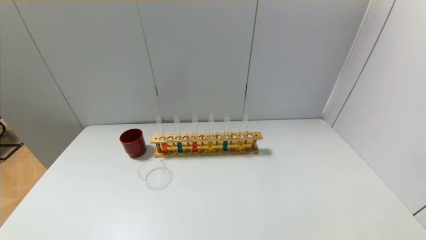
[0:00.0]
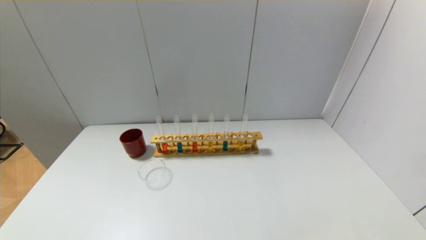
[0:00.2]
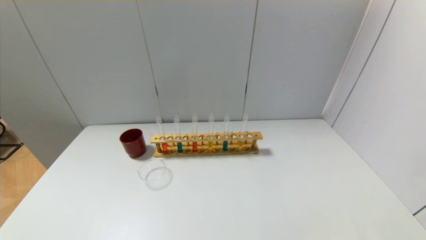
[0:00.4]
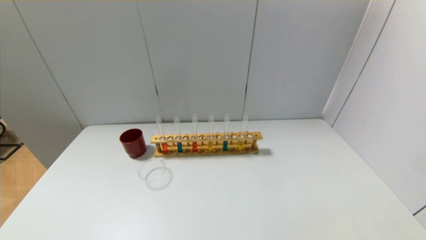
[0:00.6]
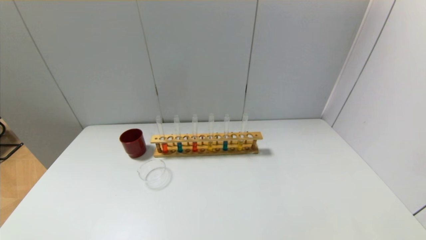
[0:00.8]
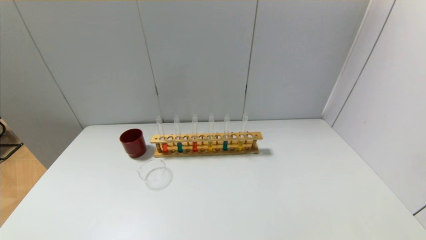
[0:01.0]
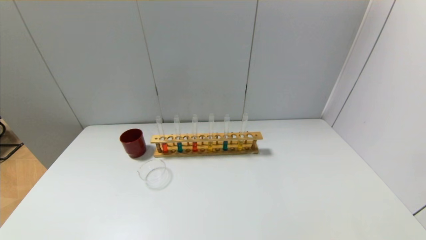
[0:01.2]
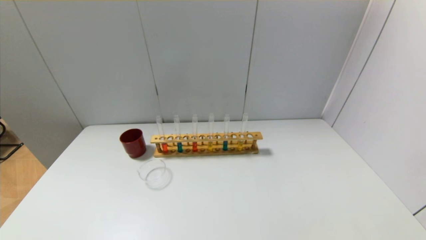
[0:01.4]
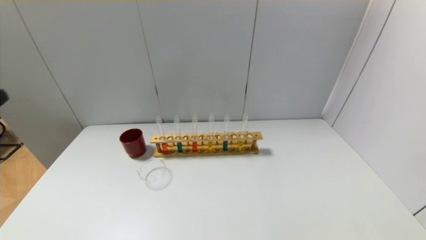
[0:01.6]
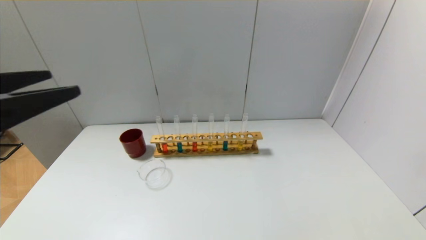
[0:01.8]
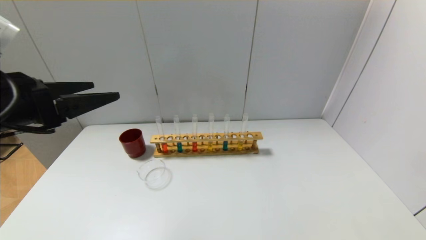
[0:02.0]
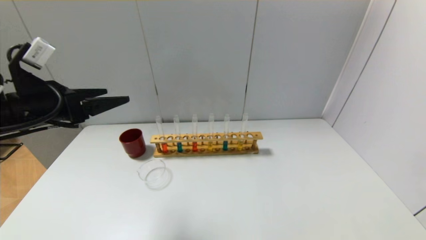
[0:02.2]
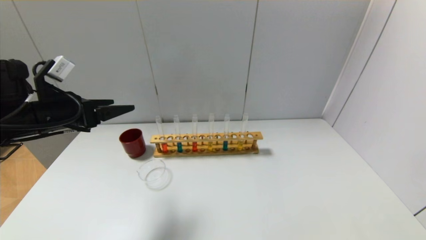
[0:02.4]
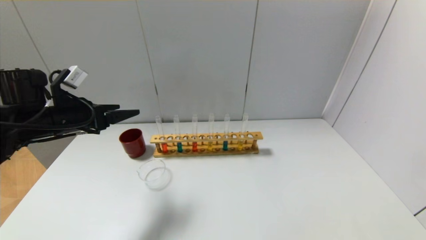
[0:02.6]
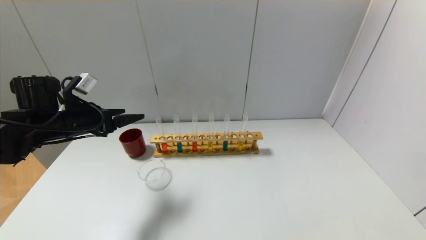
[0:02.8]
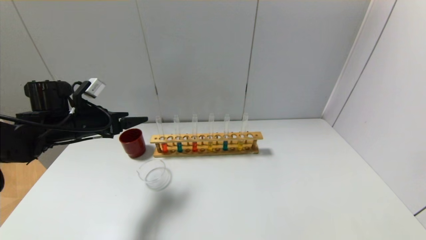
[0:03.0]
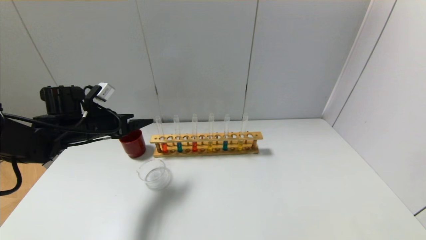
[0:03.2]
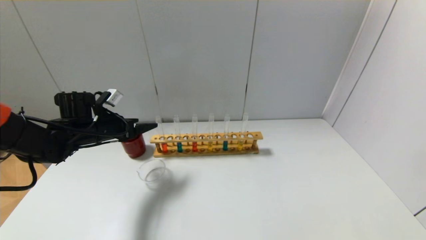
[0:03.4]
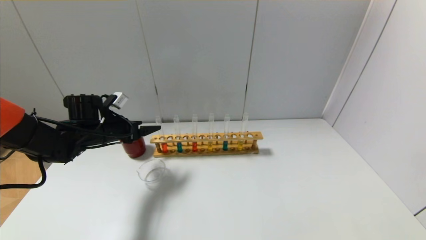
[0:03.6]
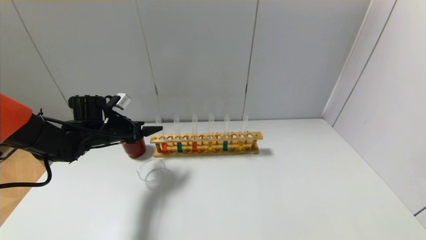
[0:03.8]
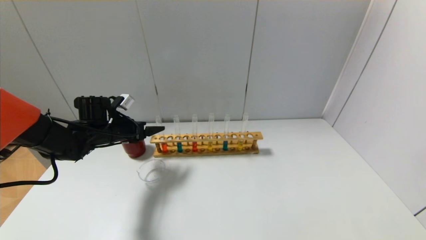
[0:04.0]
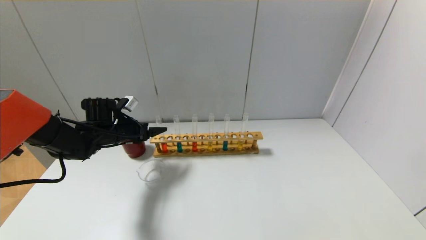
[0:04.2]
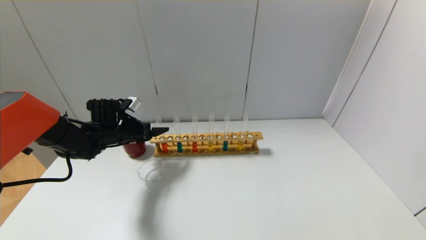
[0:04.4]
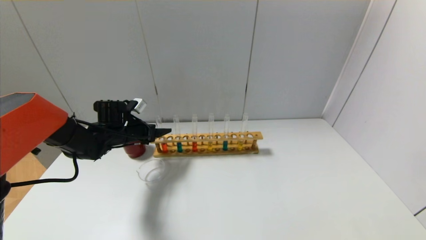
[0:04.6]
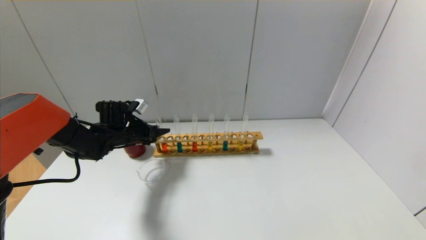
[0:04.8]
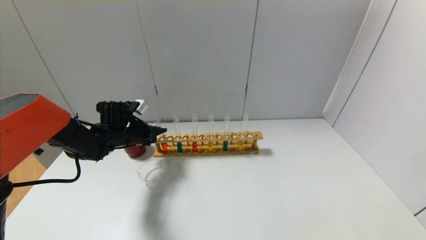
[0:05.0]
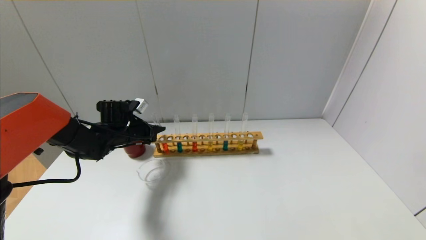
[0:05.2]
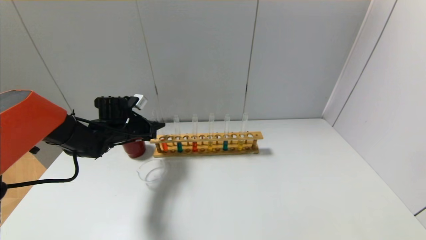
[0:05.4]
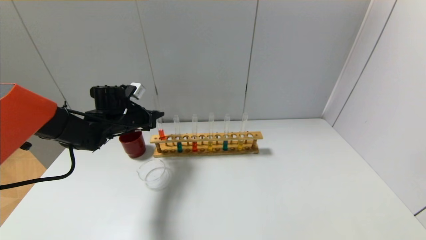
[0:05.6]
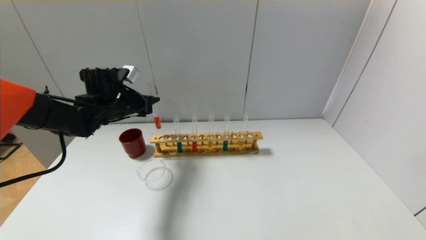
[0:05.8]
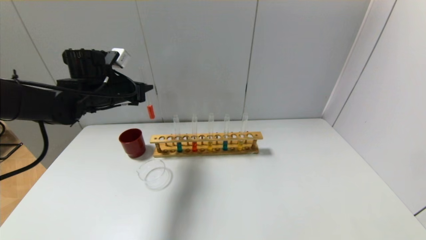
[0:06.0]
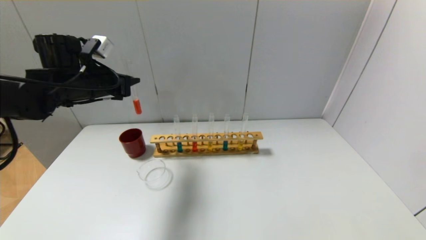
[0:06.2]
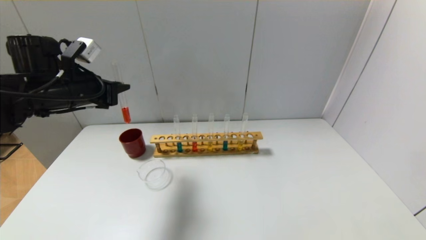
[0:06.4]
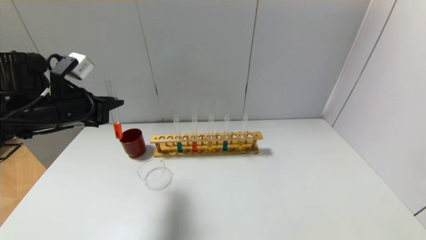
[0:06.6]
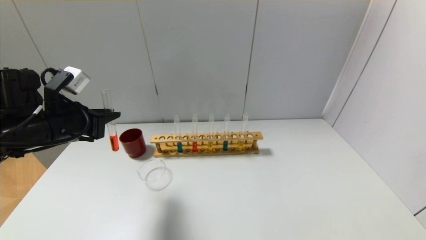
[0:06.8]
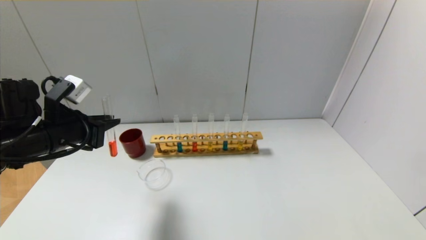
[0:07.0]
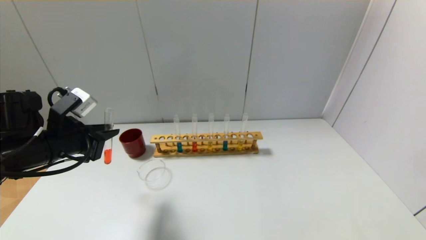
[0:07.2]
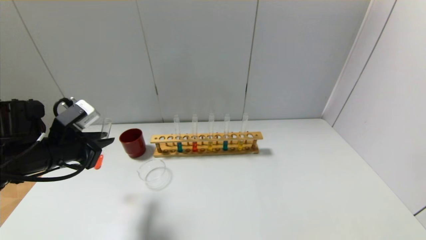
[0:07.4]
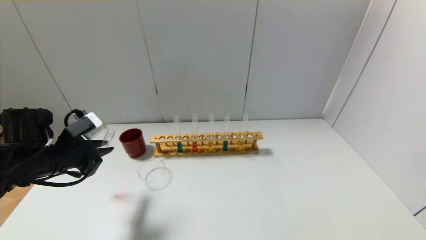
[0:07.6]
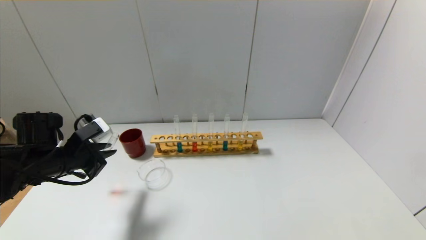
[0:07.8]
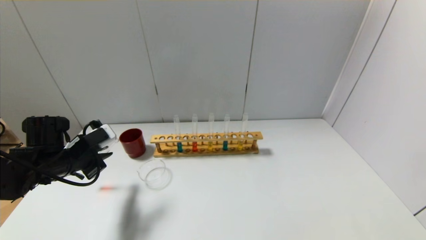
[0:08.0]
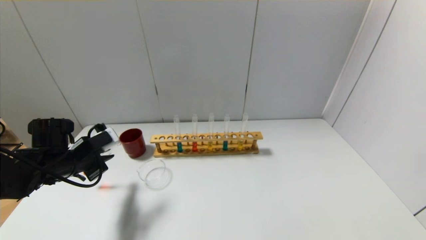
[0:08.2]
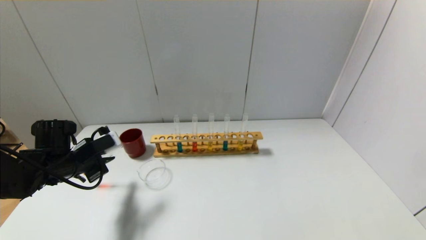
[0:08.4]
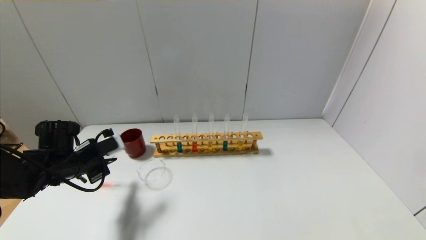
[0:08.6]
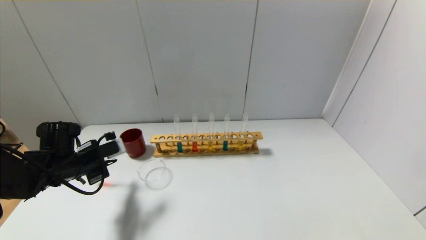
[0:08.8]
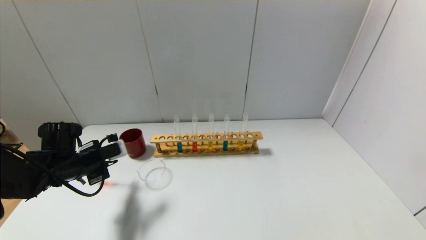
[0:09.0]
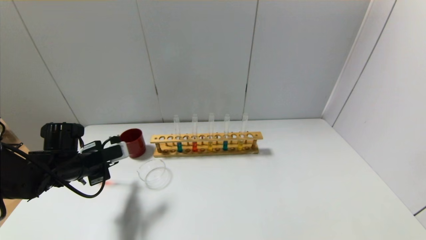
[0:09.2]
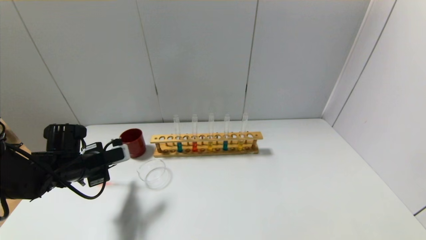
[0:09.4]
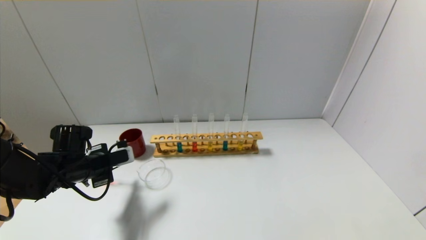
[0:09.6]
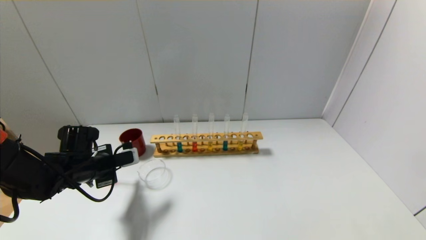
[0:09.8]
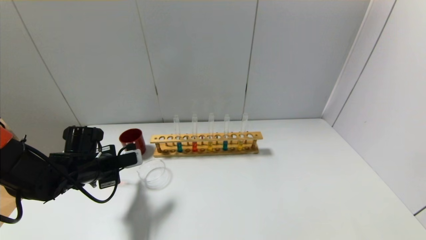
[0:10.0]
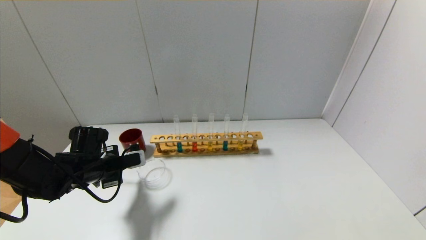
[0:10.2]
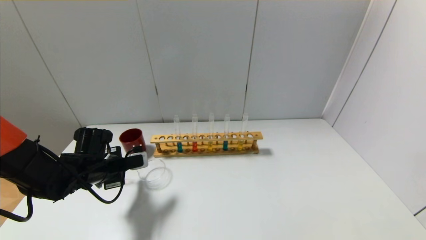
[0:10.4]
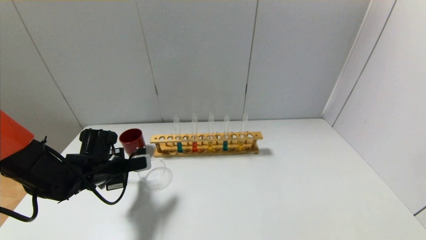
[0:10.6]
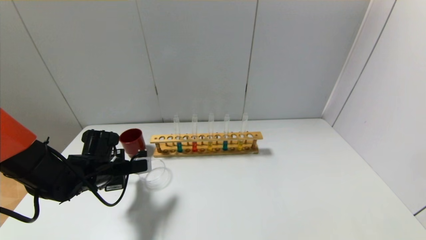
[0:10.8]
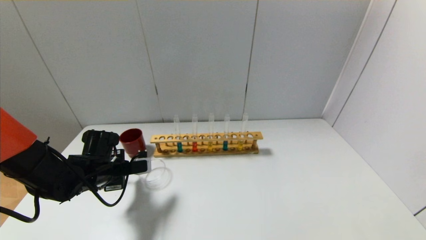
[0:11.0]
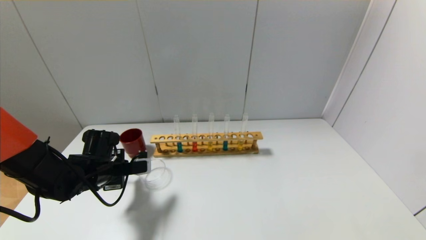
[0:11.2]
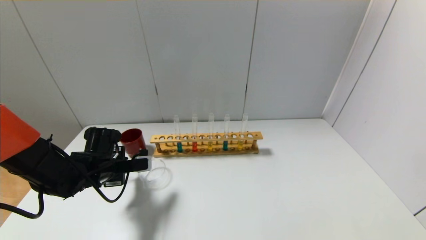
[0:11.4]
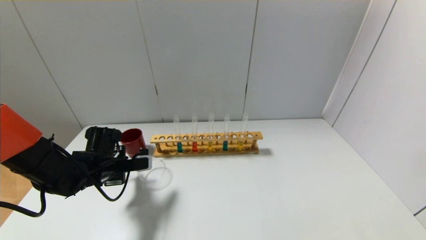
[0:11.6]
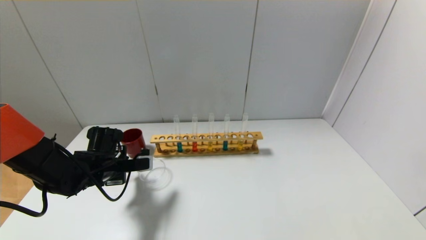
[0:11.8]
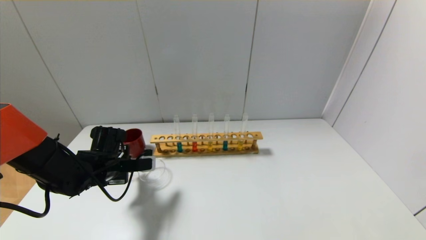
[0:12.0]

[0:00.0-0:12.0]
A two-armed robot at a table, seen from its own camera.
Step, 0:00.0 to 0:05.2: Grasp the red reagent with the left gripper.
0:01.6 to 0:03.0: The left gripper travels forward and downward by roughly 30 cm.
0:03.0 to 0:04.4: The left gripper goes about 10 cm forward and downward.
0:04.4 to 0:06.0: The left gripper is displaced upward by roughly 15 cm, and closes its fingers.
0:06.0 to 0:07.6: The left gripper heads backward, downward and to the left, covering some 15 cm.
0:07.6 to 0:09.0: The left gripper shifts approximately 5 cm downward.
0:09.0 to 0:10.4: The left gripper changes place by roughly 5 cm.
0:10.4 to 0:12.0: The grippers stay close to where they were, moving slightly.

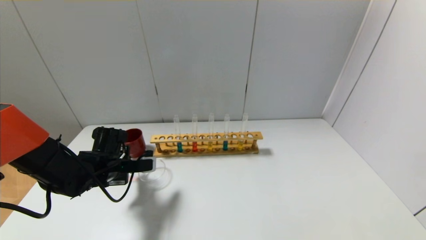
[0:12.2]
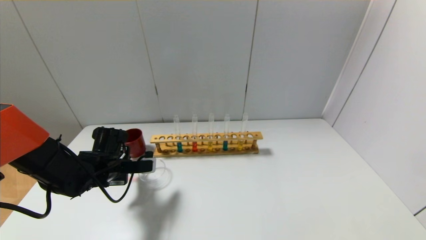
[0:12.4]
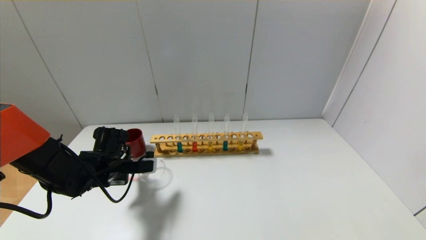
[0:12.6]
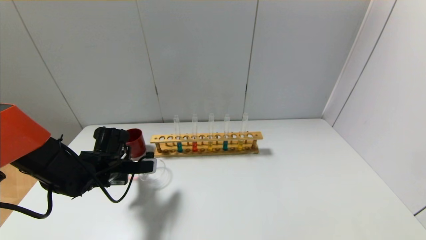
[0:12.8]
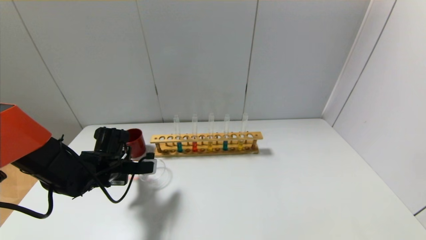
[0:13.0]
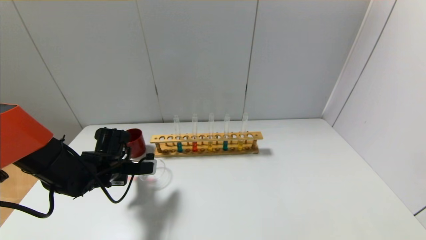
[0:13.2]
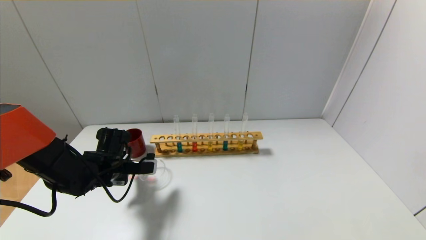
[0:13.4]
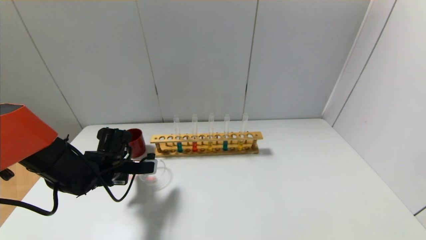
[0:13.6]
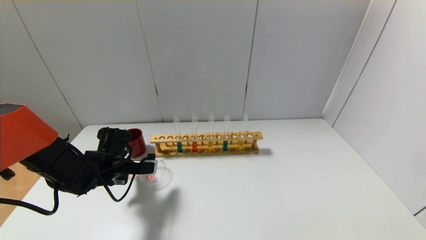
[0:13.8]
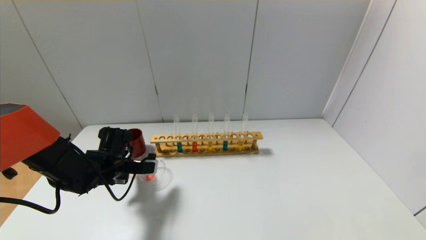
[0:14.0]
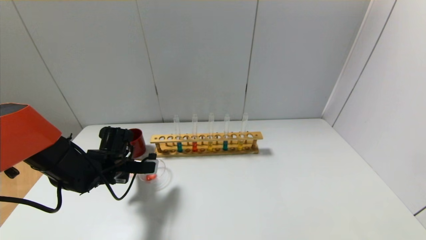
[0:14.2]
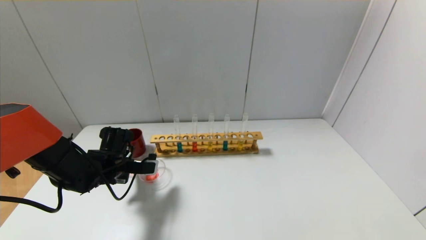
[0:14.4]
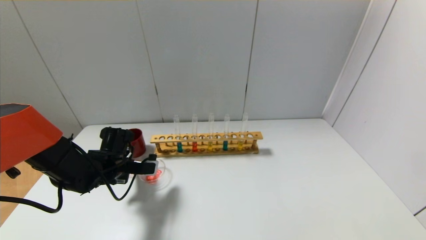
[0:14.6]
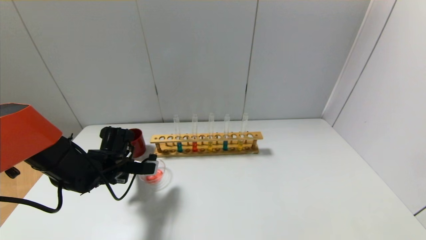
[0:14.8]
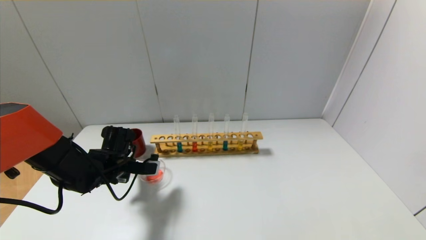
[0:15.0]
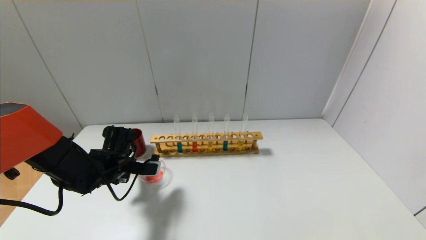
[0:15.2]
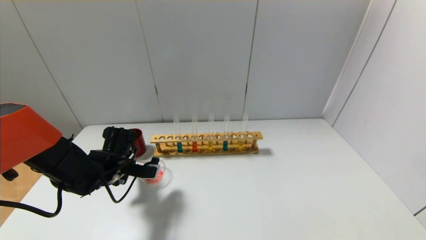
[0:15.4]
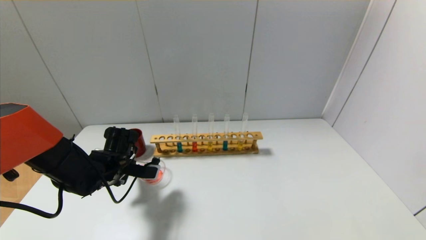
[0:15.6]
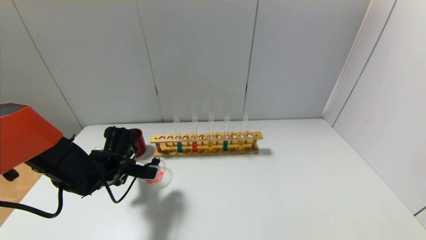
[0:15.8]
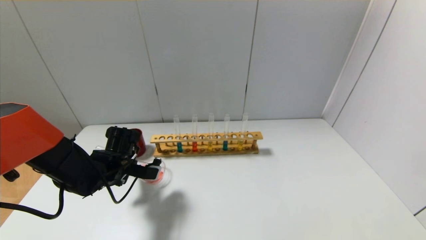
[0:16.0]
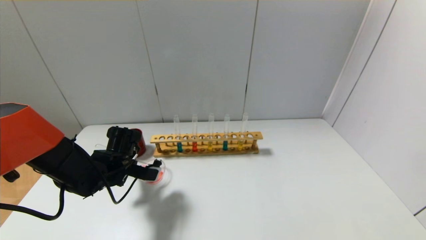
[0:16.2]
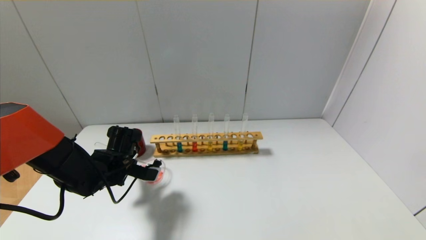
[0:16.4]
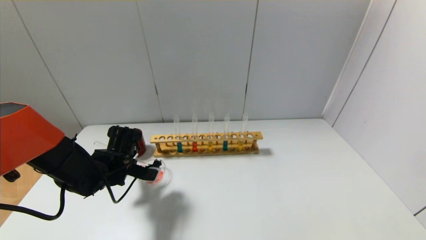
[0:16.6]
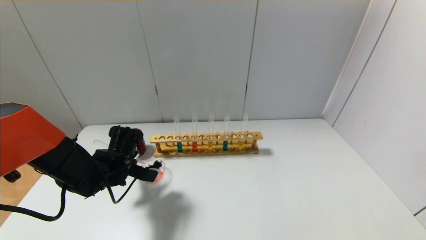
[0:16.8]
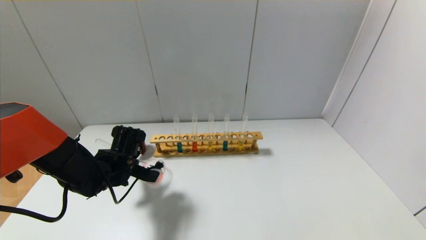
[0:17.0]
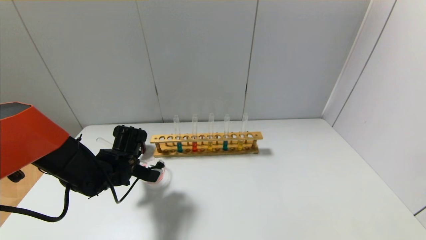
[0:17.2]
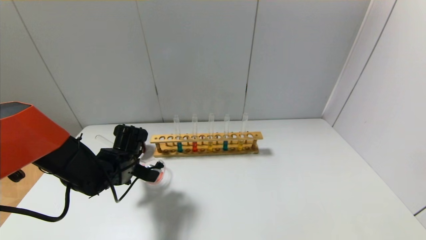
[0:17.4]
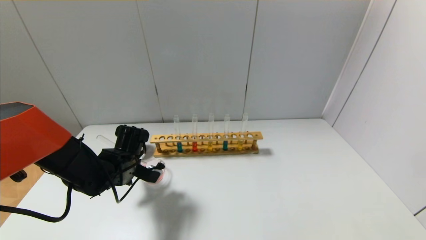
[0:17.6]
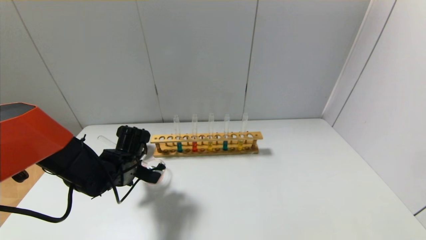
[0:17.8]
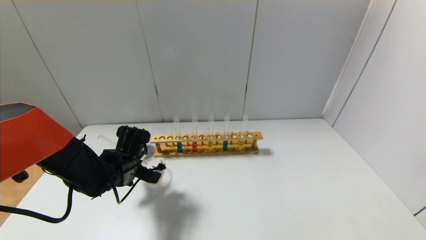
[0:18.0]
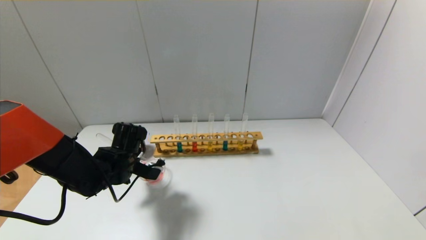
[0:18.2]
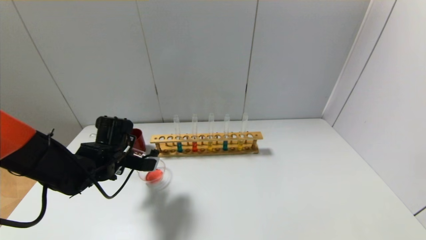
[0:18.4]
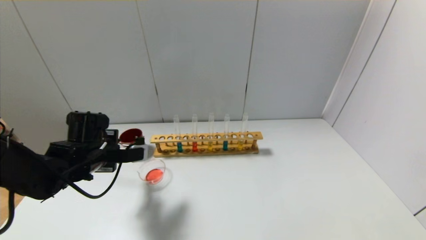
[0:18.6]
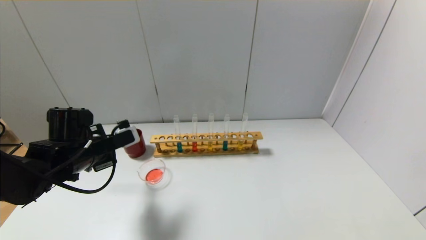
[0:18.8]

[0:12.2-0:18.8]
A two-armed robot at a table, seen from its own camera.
Step, 0:12.2 to 0:18.4: Pour the red reagent into the graduated cylinder with the left gripper.
0:12.2 to 0:15.4: The grippers move only a little.
0:15.4 to 0:17.2: The grippers move only a little.
0:17.2 to 0:18.8: The left gripper moves upward and to the left, some 10 cm.
